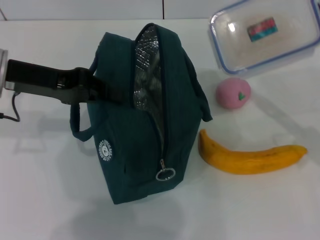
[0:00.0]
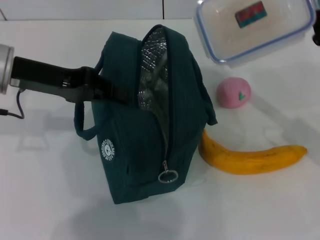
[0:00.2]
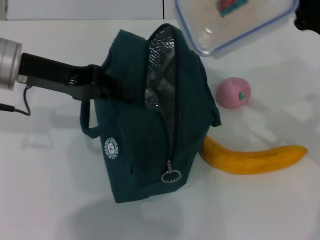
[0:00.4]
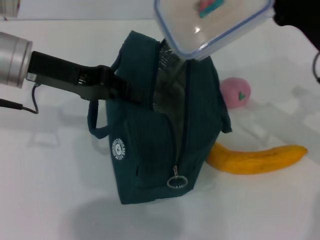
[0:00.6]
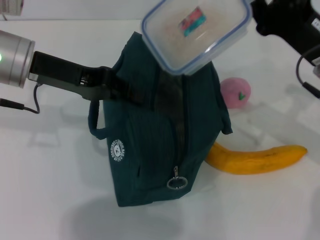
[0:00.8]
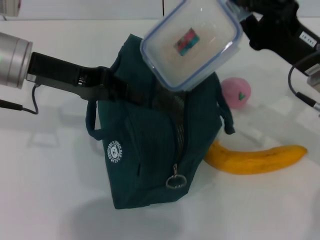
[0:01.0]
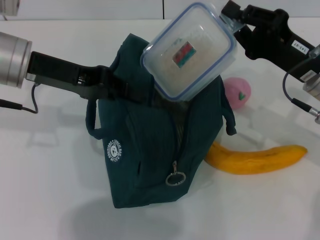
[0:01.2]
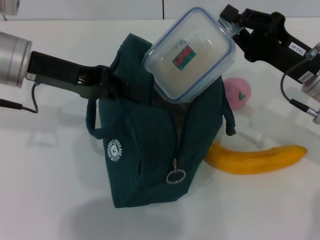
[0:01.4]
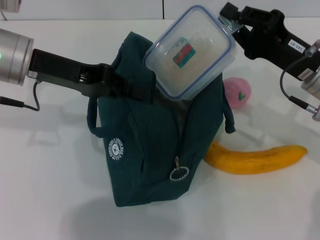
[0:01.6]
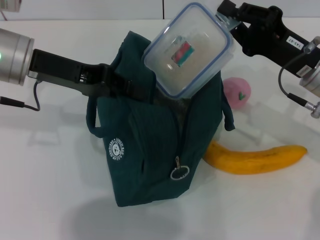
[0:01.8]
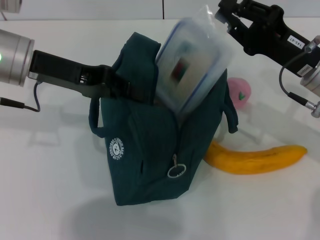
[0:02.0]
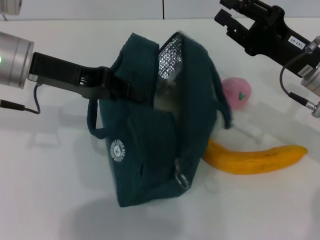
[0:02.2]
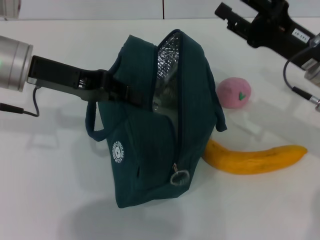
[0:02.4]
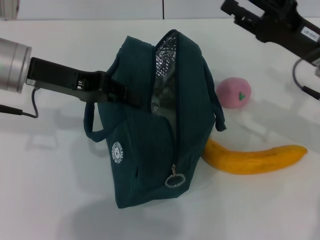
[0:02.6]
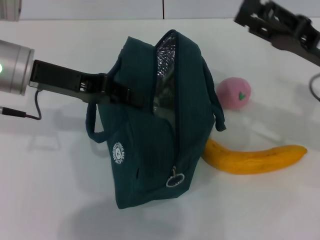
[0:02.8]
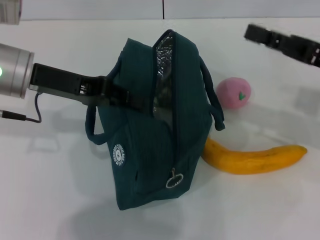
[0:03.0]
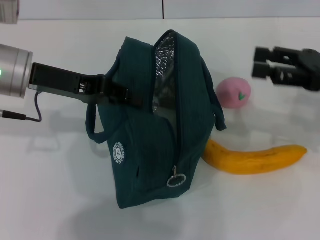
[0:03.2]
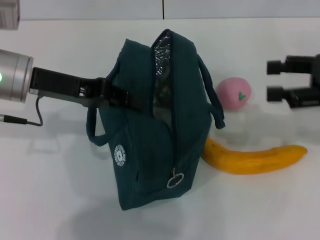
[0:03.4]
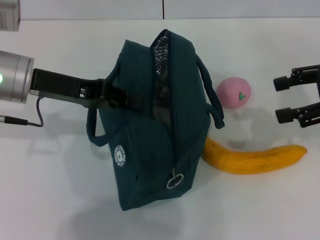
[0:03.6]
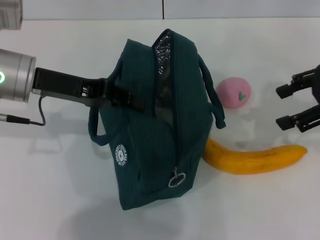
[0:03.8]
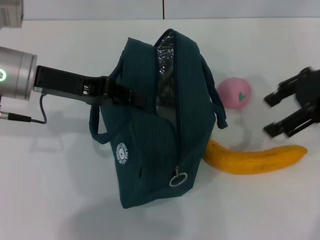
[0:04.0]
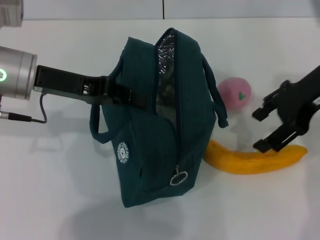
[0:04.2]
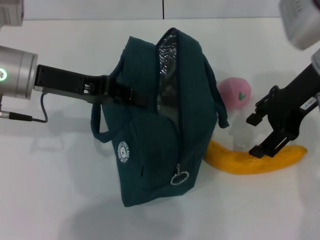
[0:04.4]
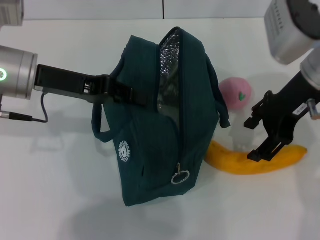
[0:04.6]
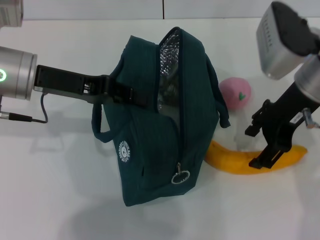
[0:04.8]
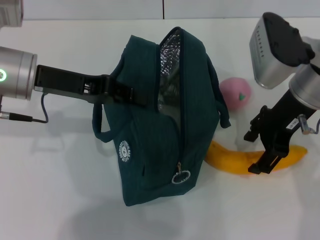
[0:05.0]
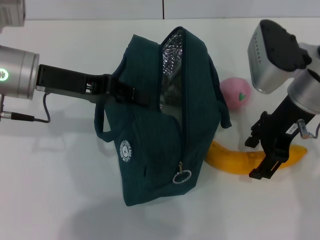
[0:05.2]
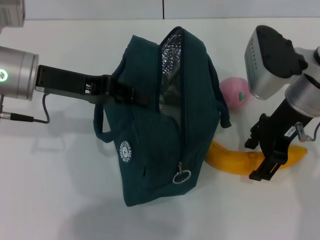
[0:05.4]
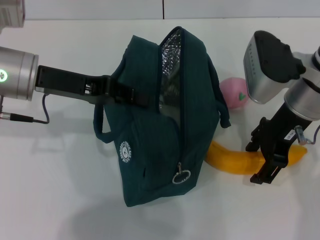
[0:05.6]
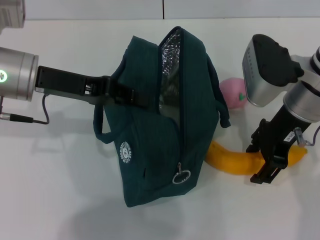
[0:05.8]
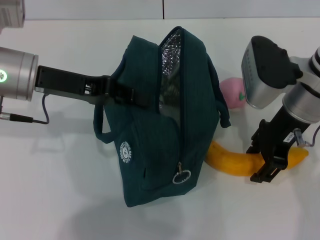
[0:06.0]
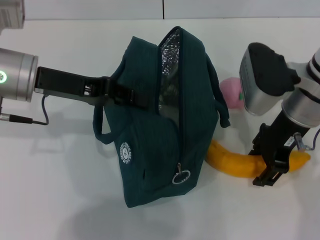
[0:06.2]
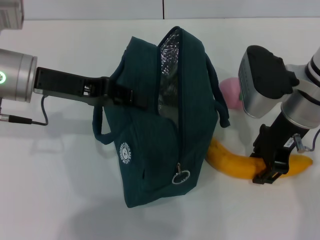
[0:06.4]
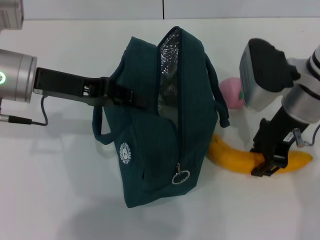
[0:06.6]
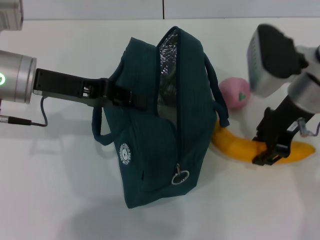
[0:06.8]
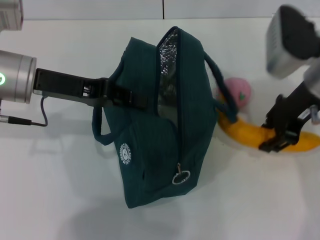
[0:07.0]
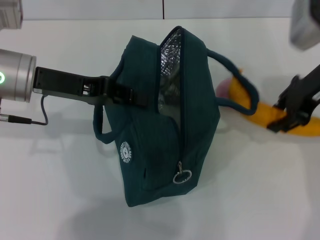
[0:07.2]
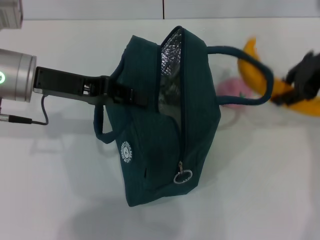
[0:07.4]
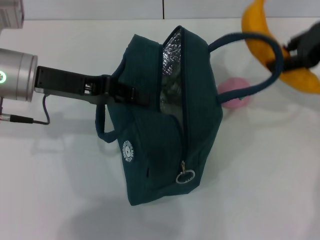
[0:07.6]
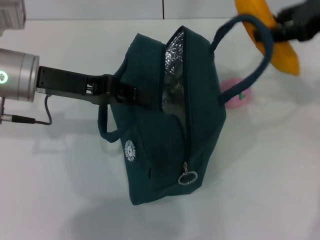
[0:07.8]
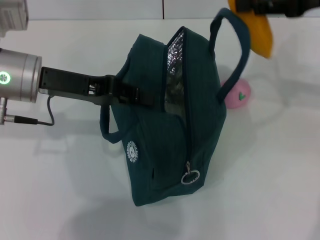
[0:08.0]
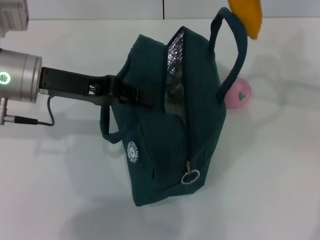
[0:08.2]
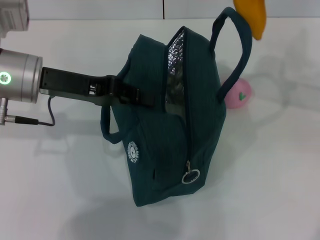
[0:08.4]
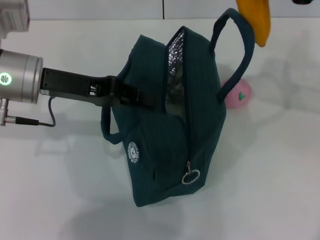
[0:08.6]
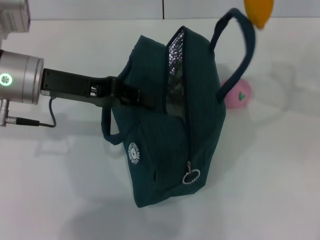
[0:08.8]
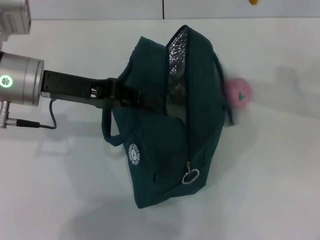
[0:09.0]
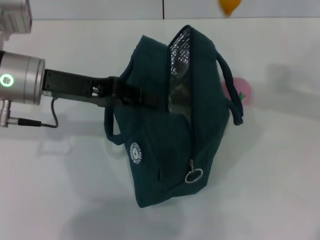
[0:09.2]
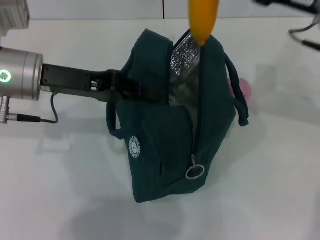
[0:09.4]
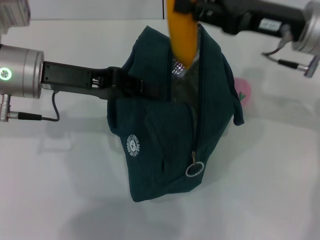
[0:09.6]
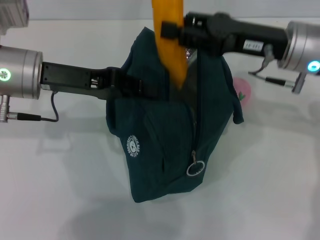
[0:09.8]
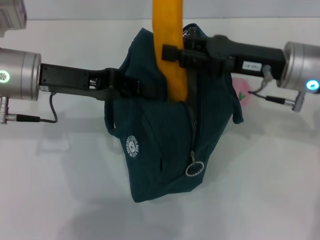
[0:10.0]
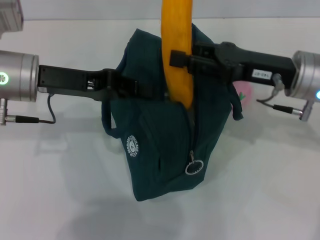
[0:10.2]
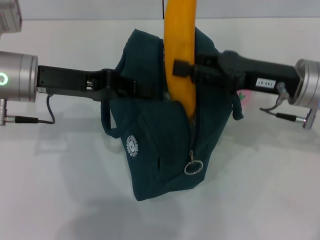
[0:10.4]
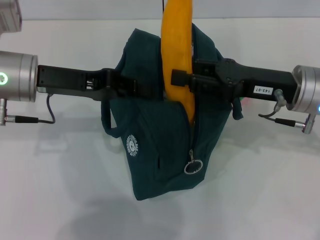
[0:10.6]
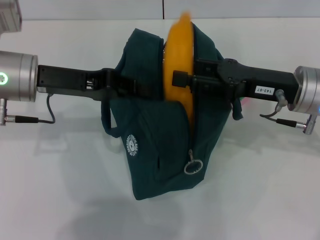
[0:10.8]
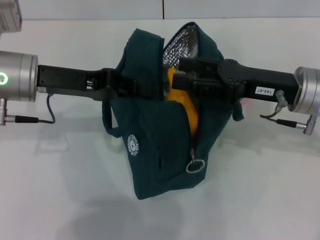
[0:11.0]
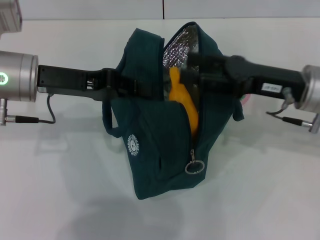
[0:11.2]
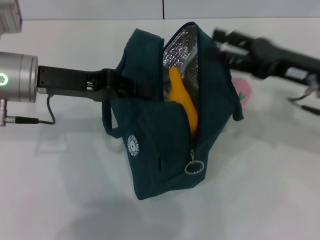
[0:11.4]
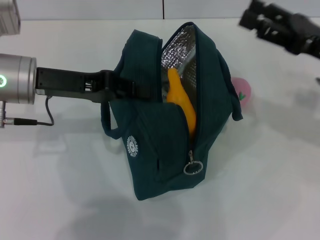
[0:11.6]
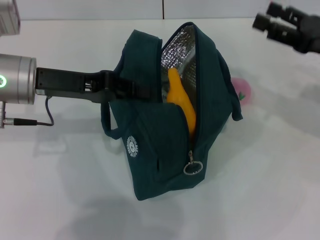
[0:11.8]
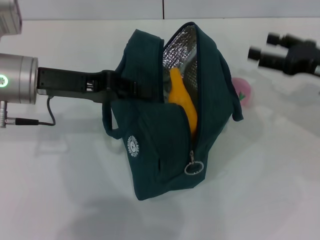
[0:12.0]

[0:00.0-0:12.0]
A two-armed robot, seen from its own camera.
Step, 0:00.0 to 0:02.4: Place the lunch box into the lunch bag with your right hand.
Step, 0:02.6 to 0:06.4: Take the banana with your right hand.
Step, 0:06.6 to 0:11.0: Put the banana into the lunch bag with your right hand.
0:00.0 to 0:01.6: The right gripper travels to the left and forward by approximately 10 cm.
0:01.6 to 0:03.0: The right gripper is displaced to the right by about 5 cm, and opens.
0:03.0 to 0:04.4: The right gripper is displaced to the left and upward by approximately 10 cm.
0:04.4 to 0:06.0: The right gripper moves downward, about 5 cm.
0:06.0 to 0:07.6: The right gripper goes roughly 15 cm to the right and upward, and closes up.
0:07.6 to 0:09.0: The right gripper changes place by roughly 5 cm.
0:09.0 to 0:10.4: The right gripper shifts about 15 cm downward and to the left.
0:10.4 to 0:12.0: The right gripper shifts roughly 10 cm to the right, and opens its fingers.

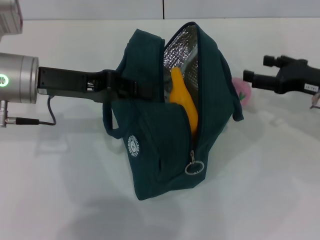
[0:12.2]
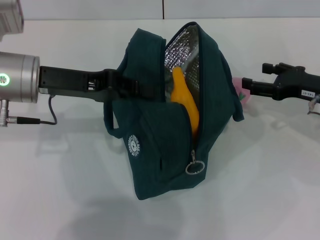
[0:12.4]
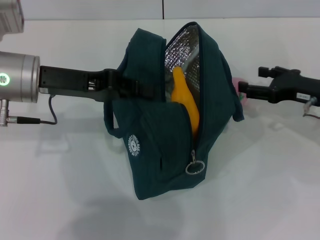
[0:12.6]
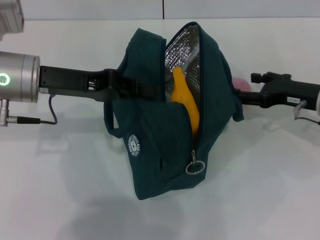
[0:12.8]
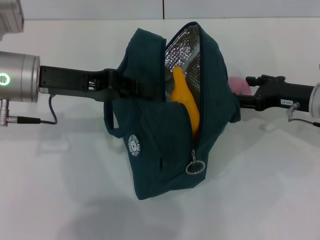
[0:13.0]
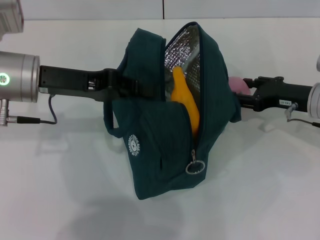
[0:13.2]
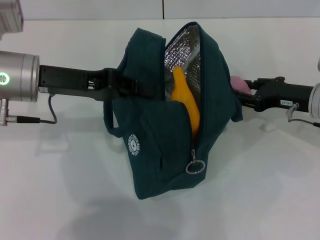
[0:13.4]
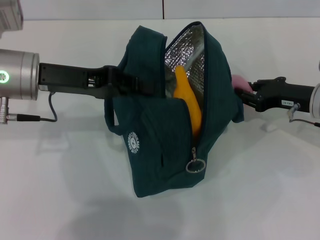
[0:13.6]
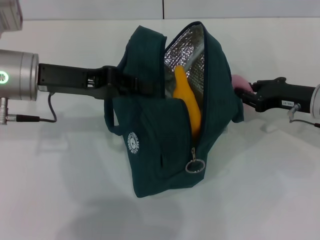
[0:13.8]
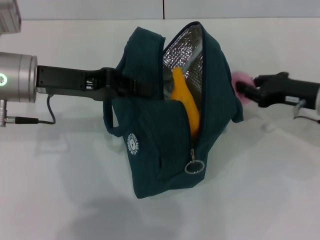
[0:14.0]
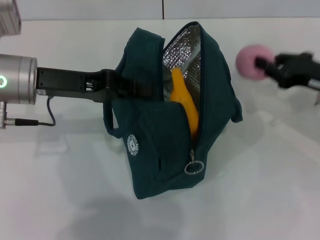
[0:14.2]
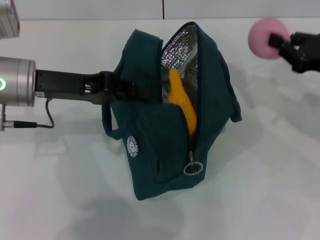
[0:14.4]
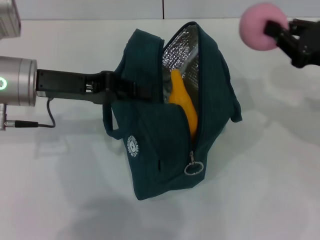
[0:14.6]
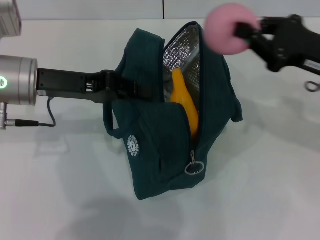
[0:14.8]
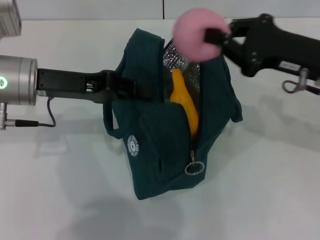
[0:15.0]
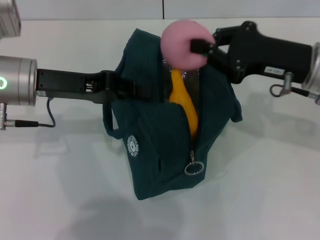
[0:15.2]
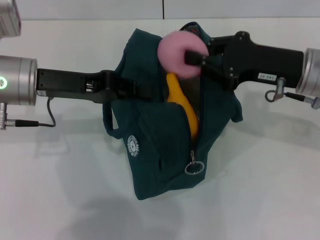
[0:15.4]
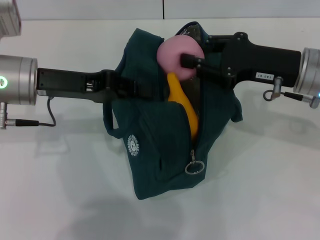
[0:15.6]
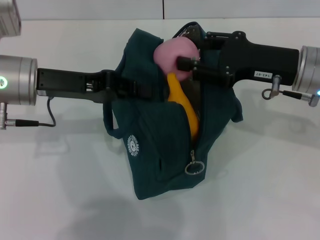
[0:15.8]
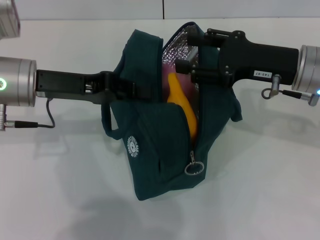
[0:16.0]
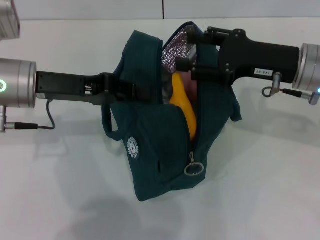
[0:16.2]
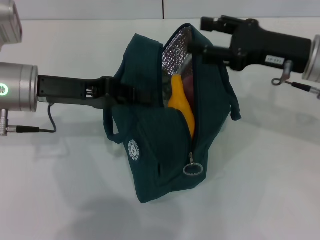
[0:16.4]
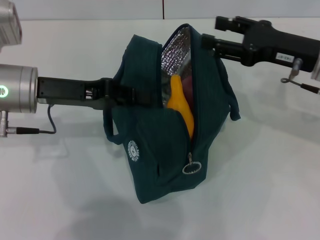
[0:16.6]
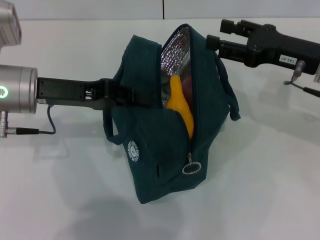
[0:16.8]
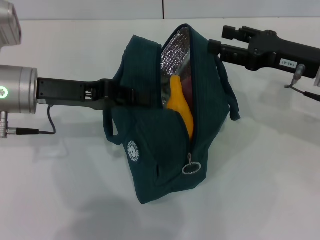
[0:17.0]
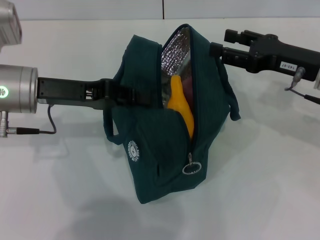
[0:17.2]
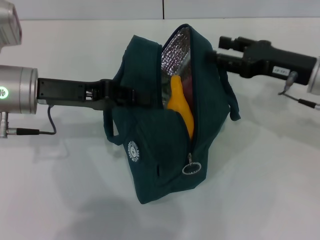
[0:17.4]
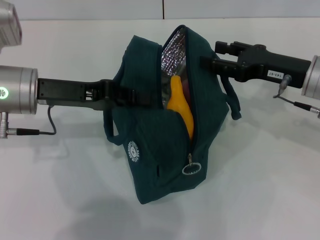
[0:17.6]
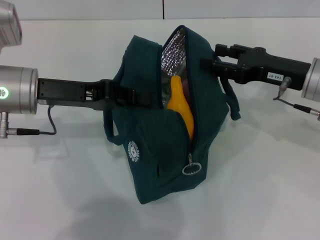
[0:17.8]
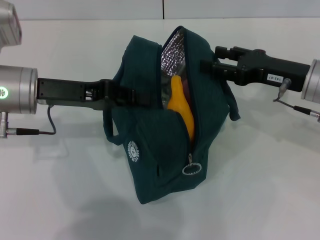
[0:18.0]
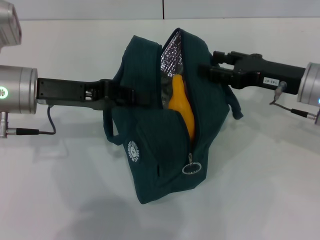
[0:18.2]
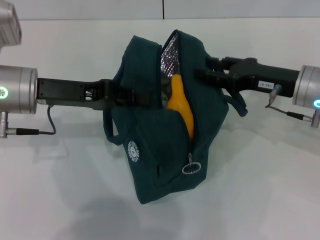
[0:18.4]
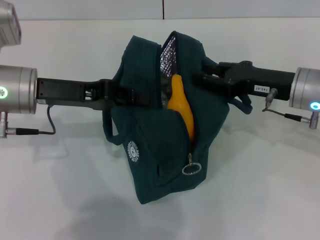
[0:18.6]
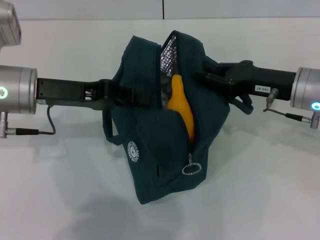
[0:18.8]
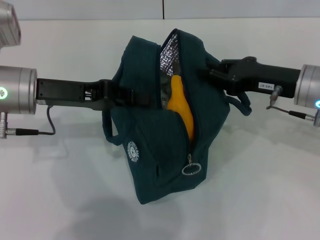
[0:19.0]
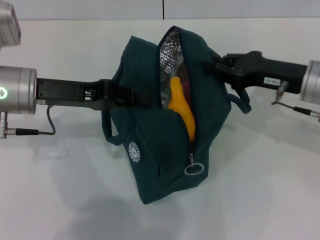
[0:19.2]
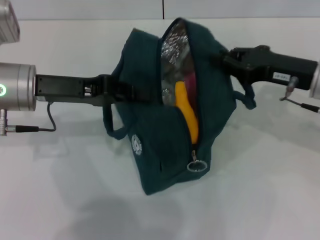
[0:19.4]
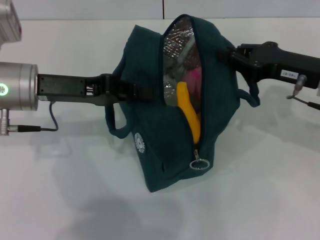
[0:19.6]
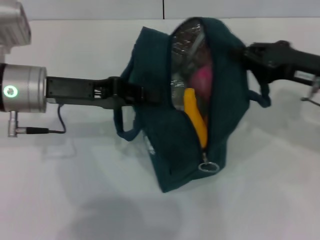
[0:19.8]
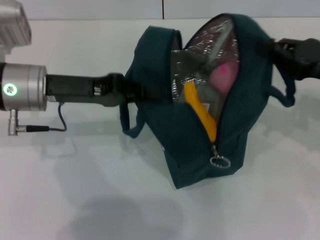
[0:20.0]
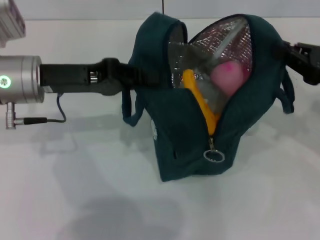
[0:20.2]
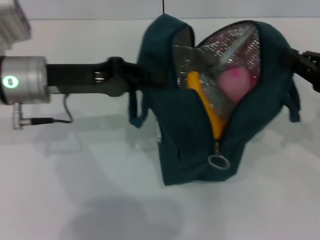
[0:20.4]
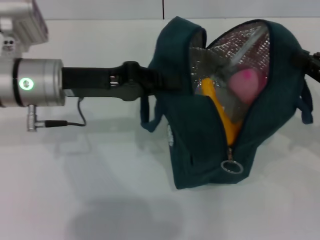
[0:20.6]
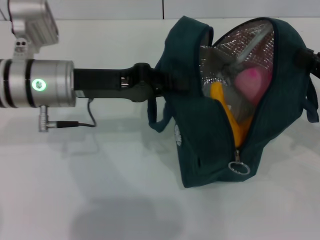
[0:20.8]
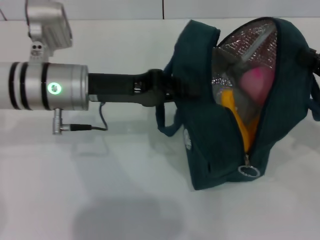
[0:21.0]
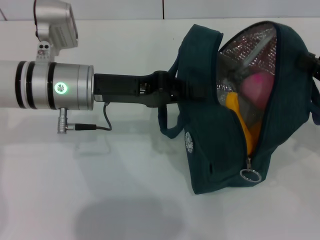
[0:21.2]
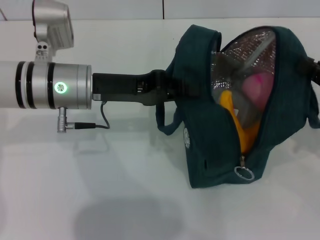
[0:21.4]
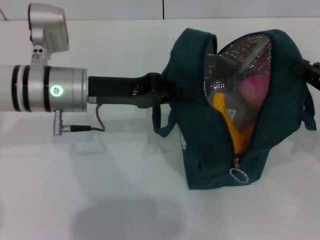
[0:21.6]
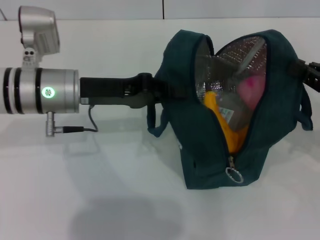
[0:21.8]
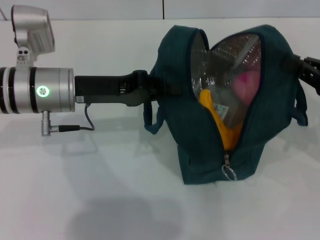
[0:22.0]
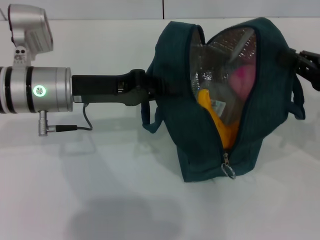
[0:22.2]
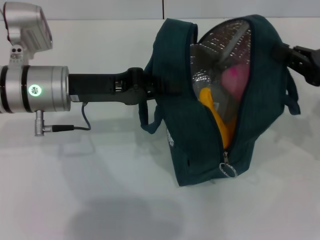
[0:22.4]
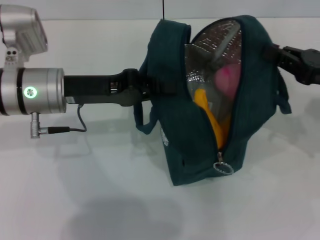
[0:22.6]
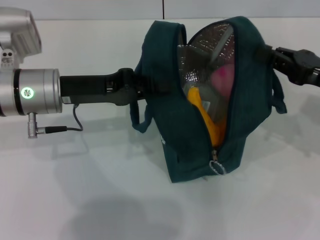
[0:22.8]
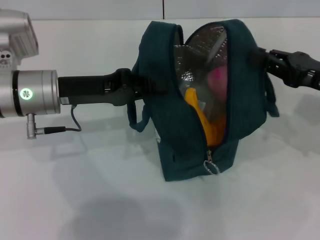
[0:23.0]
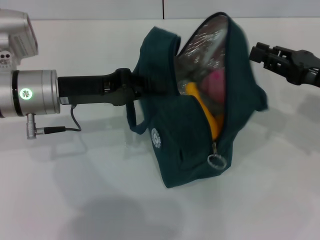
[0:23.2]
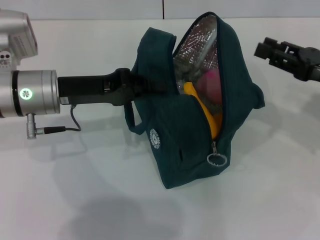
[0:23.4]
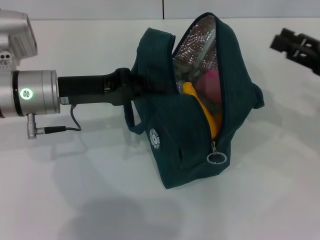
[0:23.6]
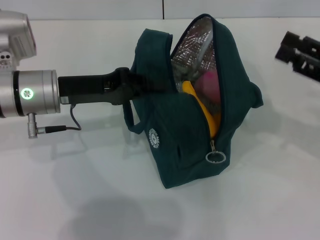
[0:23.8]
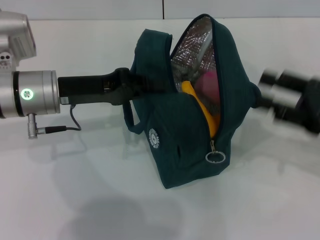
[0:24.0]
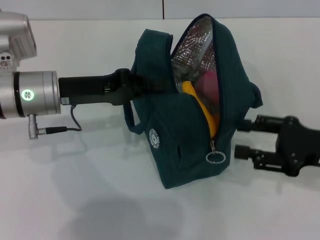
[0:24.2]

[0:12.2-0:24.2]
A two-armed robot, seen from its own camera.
Step, 0:12.2 to 0:13.6: Grab the peach with your right hand.
Step, 0:16.2 to 0:23.2: Hold the lunch bag with your right hand.
0:12.2 to 0:13.8: The right gripper closes its fingers.
0:13.8 to 0:15.2: The right gripper goes approximately 10 cm upward.
0:15.2 to 0:16.6: The right gripper opens its fingers.
0:16.6 to 0:18.2: The grippers make only small movements.
0:18.2 to 0:19.8: The right gripper closes.
0:19.8 to 0:21.2: Both grippers travel together to the right, about 5 cm.
0:22.6 to 0:24.2: The right gripper shifts by about 5 cm, and opens.
